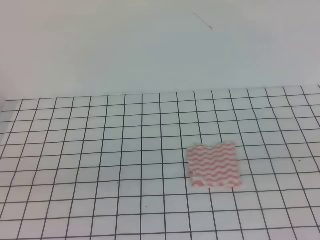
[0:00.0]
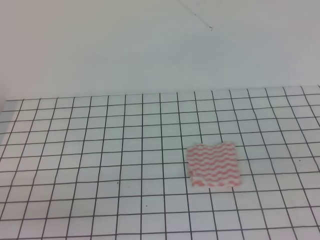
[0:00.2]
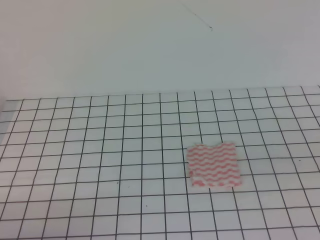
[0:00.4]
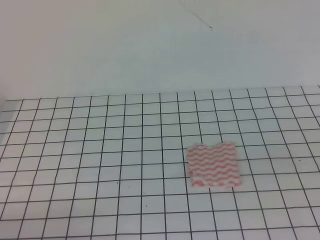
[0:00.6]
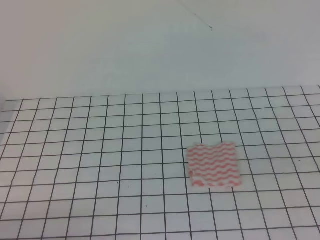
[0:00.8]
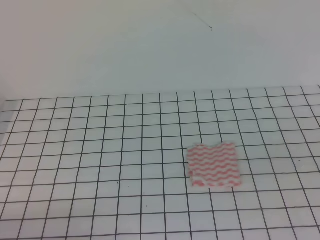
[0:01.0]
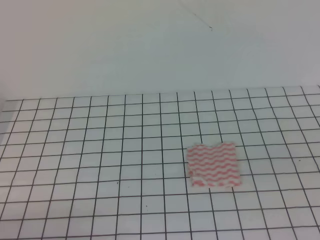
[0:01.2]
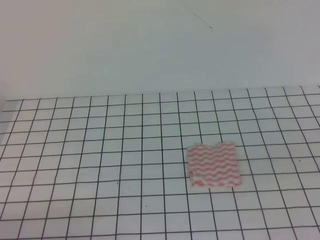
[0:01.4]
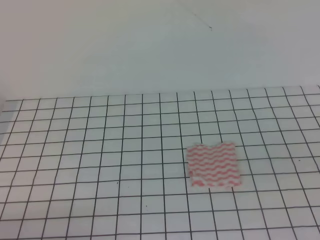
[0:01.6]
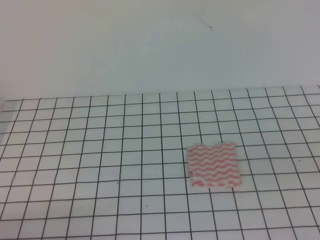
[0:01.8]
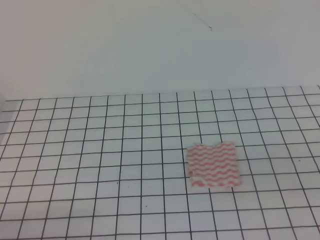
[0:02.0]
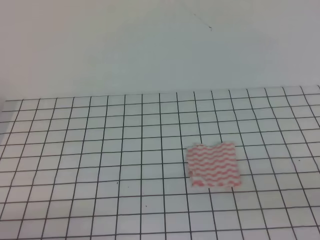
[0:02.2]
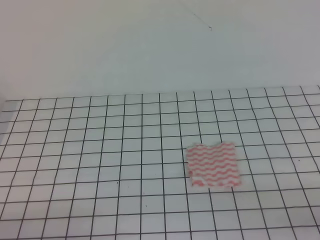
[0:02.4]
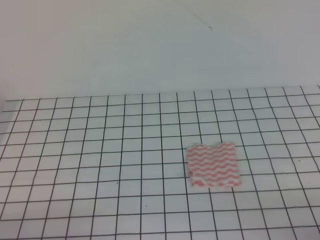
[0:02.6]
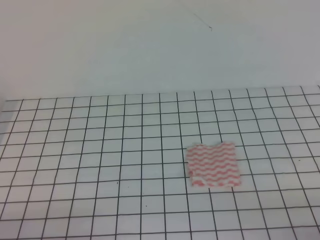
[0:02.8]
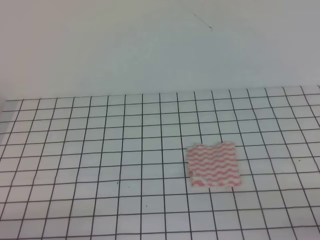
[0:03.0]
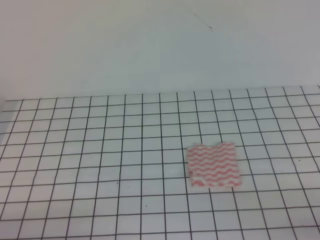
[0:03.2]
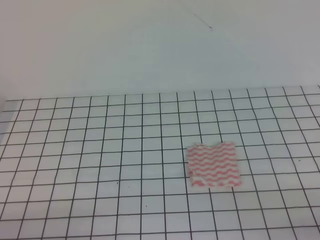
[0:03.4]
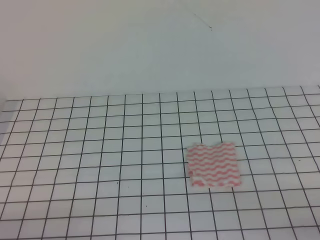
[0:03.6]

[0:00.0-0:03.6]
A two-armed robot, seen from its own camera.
0:00.0 to 0:01.8: The left gripper shifts about 15 cm downward.
